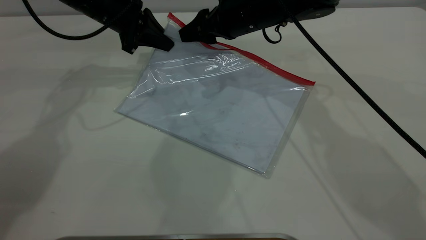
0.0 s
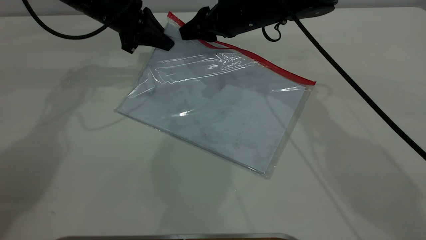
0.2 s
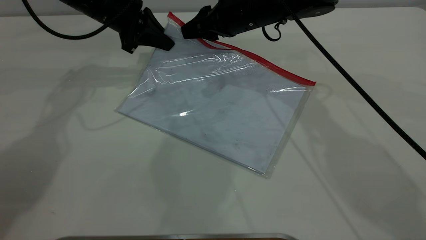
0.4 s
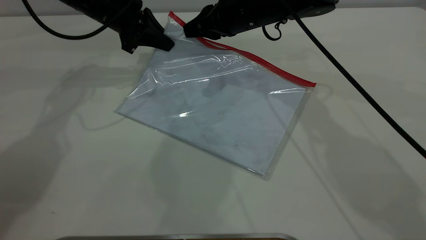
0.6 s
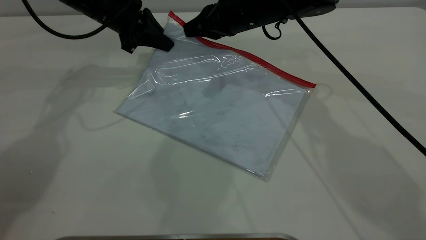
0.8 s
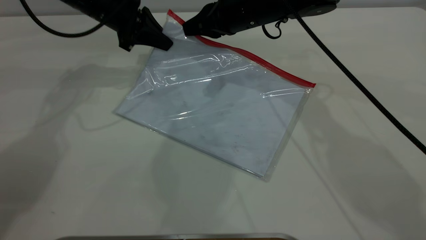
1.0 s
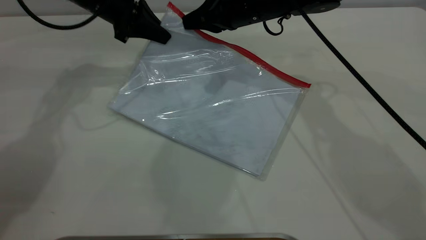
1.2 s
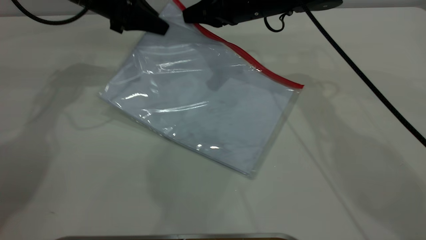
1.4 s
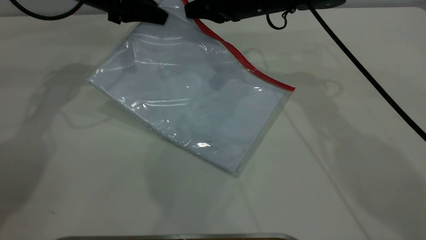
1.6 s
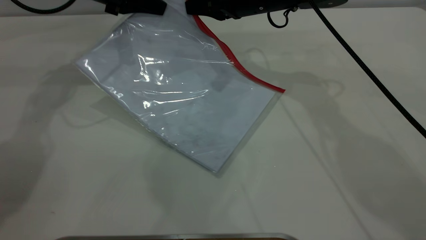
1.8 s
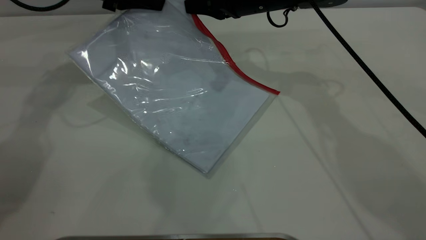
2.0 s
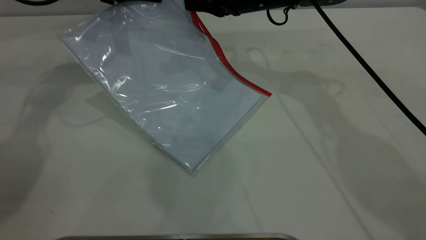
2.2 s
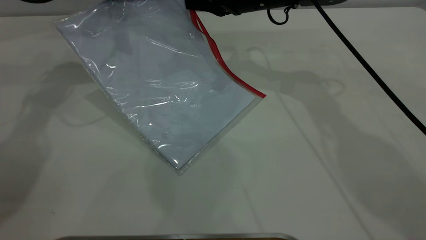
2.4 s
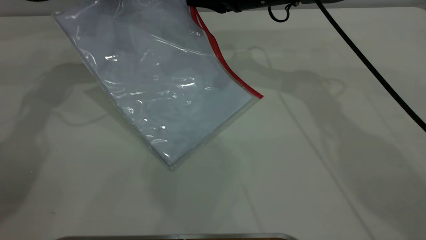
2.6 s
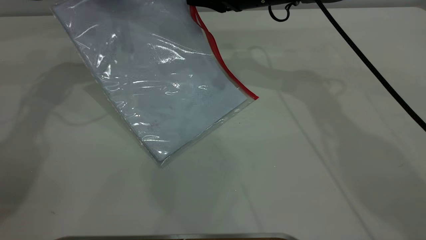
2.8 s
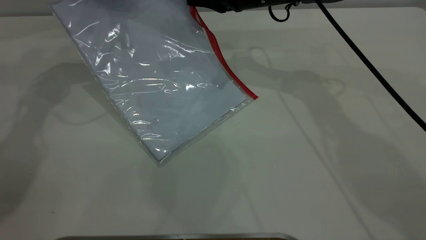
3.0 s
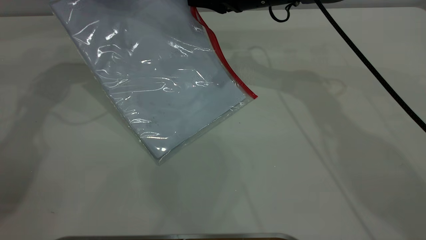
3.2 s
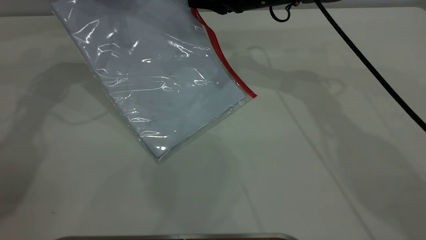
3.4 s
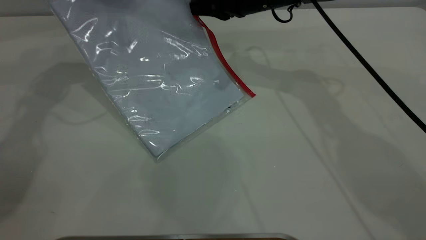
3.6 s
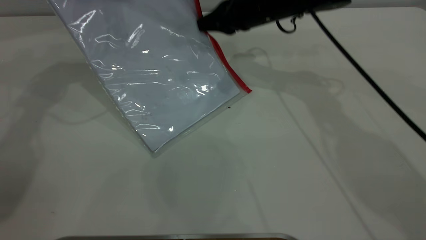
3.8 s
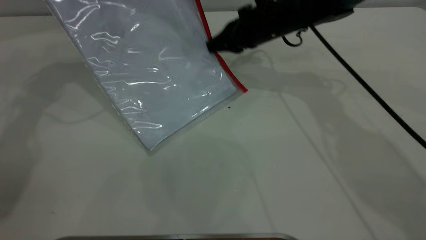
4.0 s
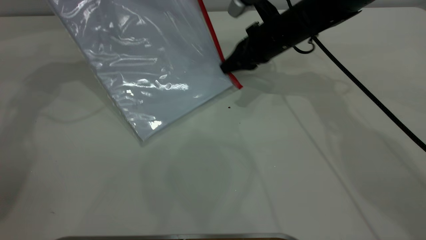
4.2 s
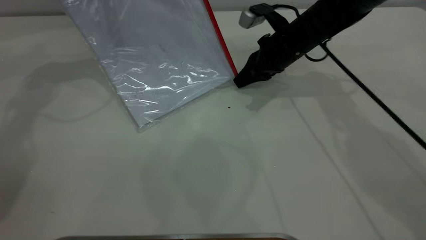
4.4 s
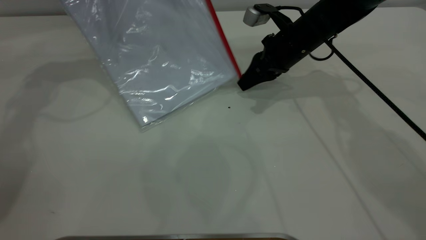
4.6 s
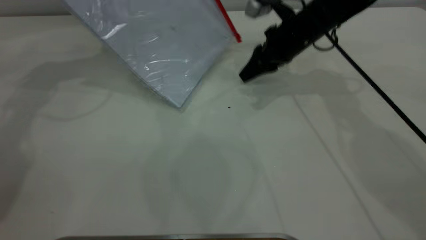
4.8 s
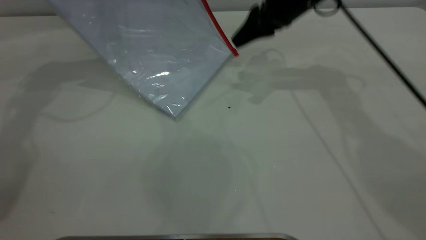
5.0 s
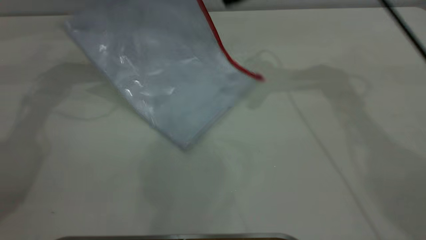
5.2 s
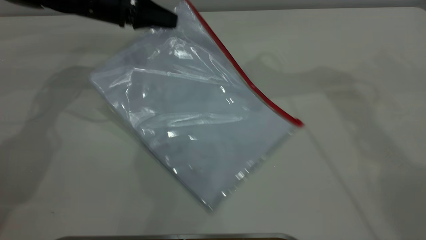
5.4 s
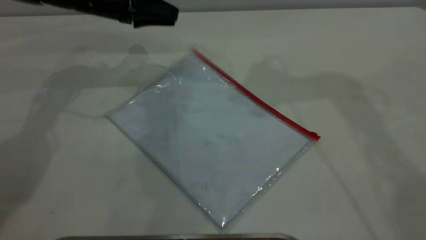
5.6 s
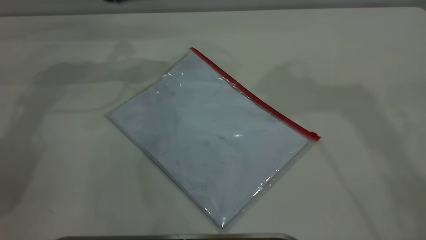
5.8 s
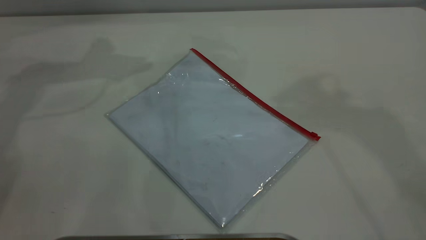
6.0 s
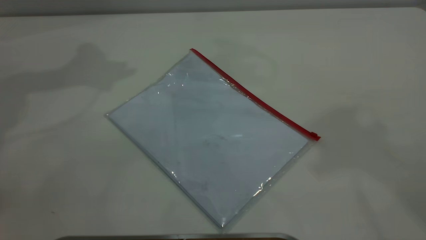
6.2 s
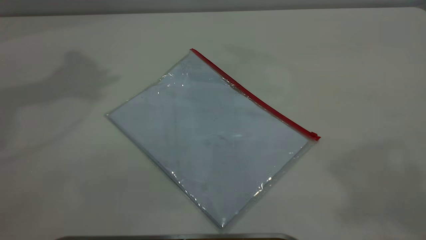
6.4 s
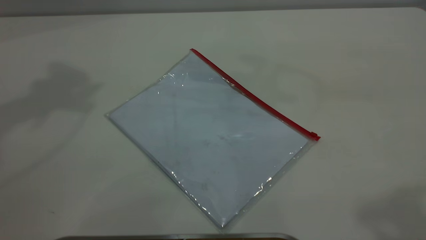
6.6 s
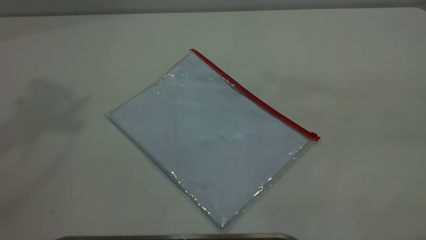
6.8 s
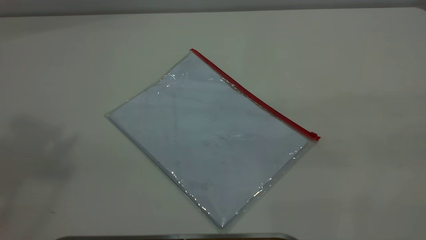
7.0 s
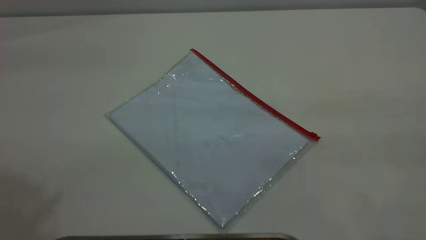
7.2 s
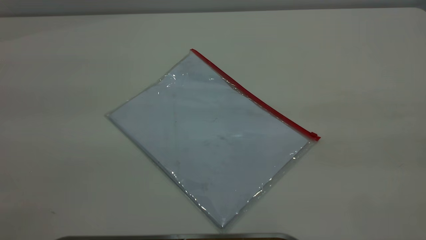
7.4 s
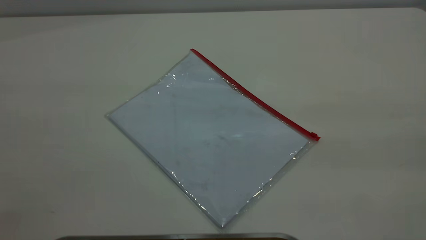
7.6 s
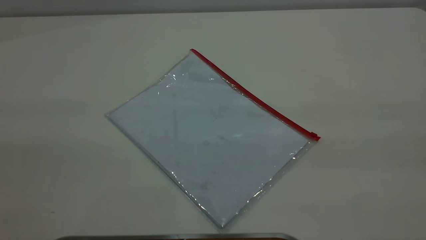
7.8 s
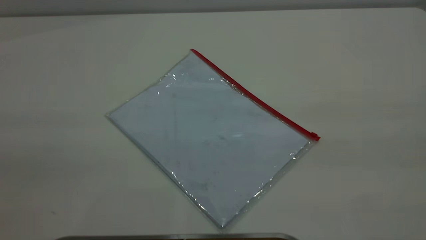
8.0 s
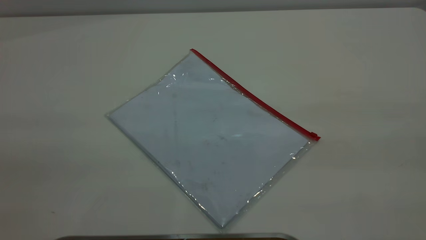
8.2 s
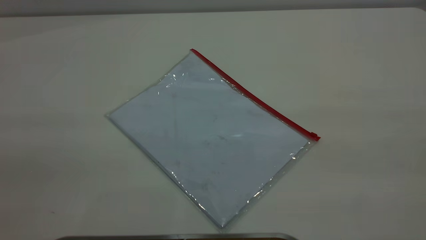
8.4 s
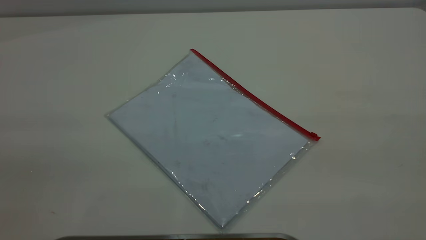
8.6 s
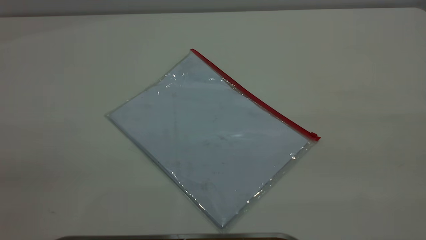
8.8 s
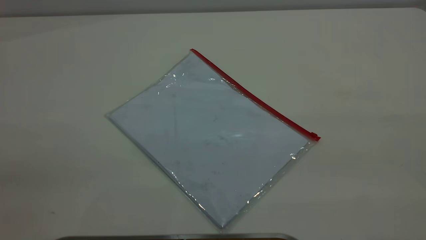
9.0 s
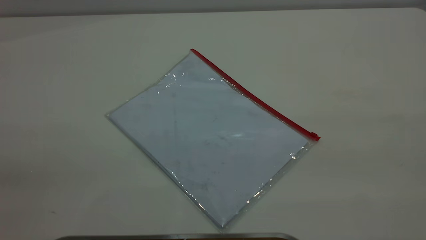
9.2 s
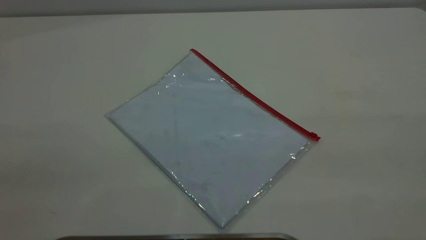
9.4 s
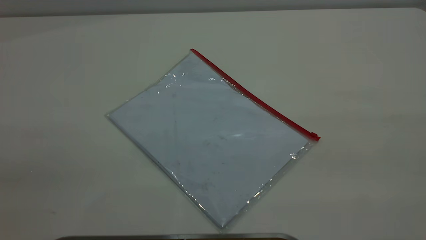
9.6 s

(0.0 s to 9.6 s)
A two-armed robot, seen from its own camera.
Step, 0.0 s - 4.6 s: Pulling up the zipper on the transparent plastic bag with the right gripper to close it.
Step, 4.8 s - 5.6 s: Place the transparent plastic bag.
0.0 s - 1.6 s: The right gripper closes.
1.6 s - 3.2 s: There are only small adjustments of the grippers.
3.2 s - 4.8 s: The right gripper goes roughly 5 cm to the right, and opens up.
4.8 s - 6.4 s: The left gripper shifts approximately 20 cm upward and backward, and opens its fingers. The right gripper goes approximately 50 cm upward and backward.

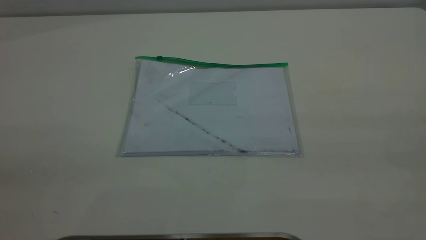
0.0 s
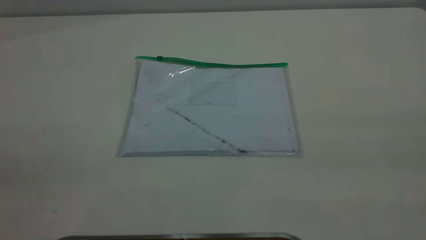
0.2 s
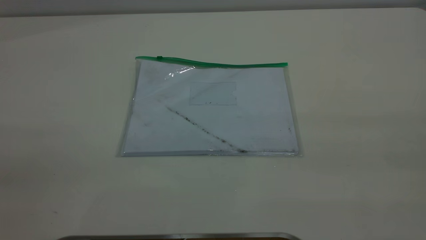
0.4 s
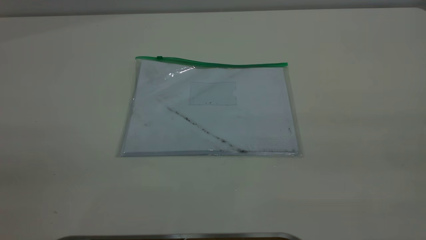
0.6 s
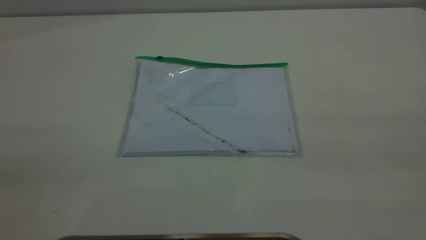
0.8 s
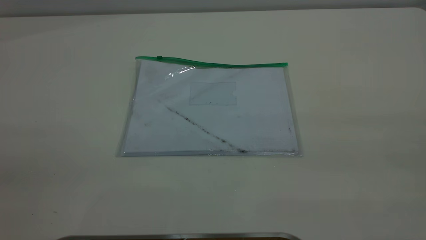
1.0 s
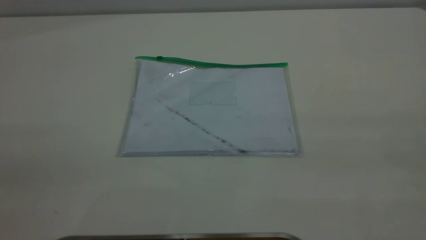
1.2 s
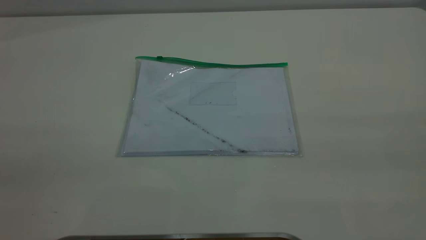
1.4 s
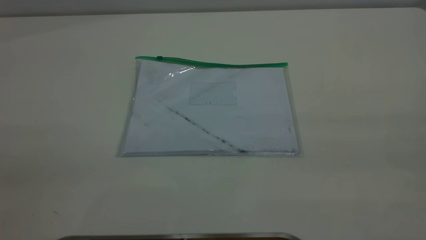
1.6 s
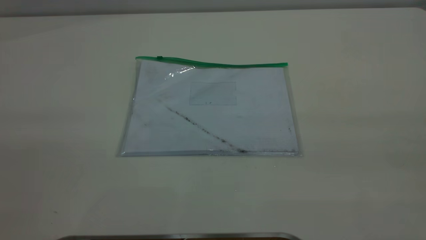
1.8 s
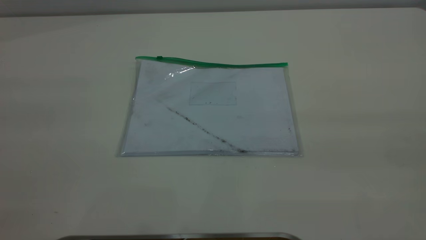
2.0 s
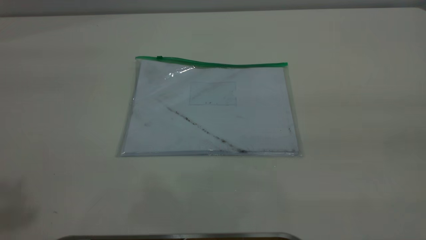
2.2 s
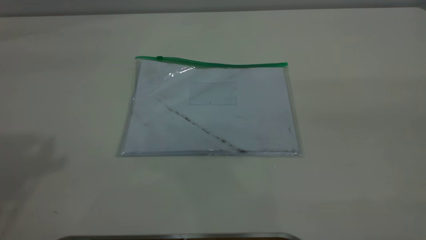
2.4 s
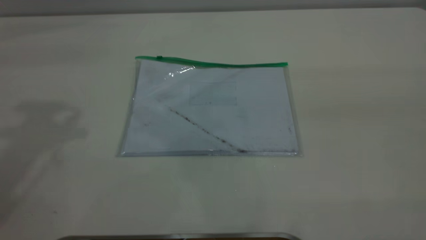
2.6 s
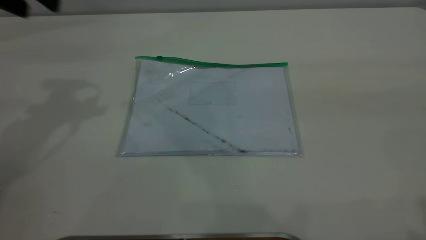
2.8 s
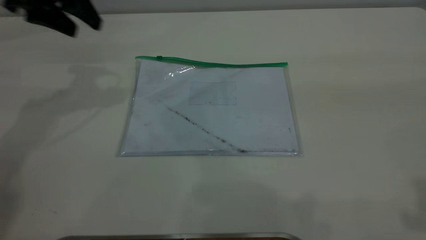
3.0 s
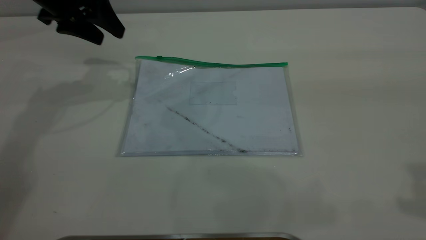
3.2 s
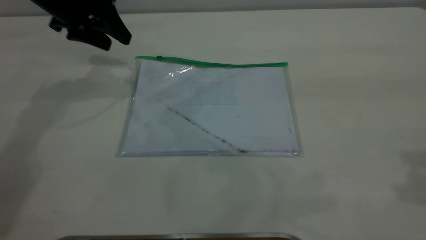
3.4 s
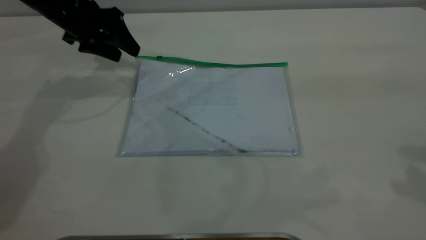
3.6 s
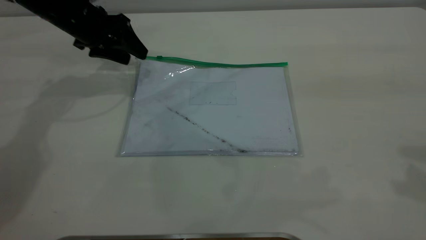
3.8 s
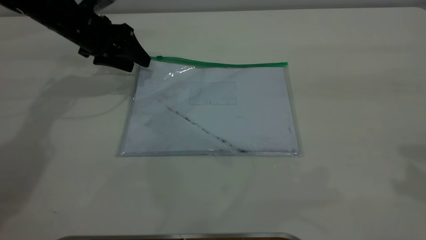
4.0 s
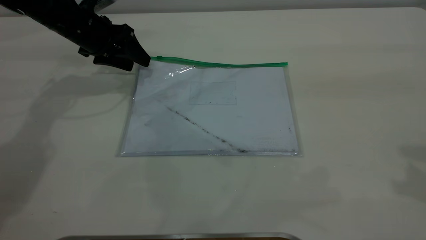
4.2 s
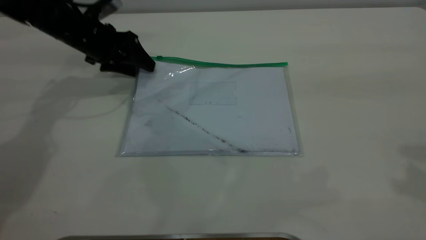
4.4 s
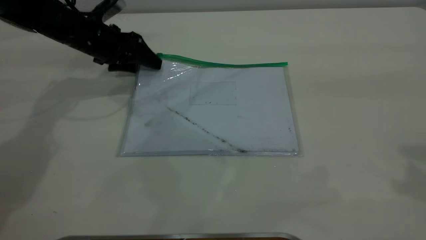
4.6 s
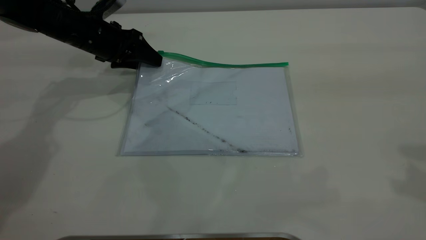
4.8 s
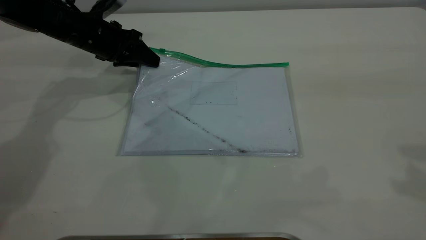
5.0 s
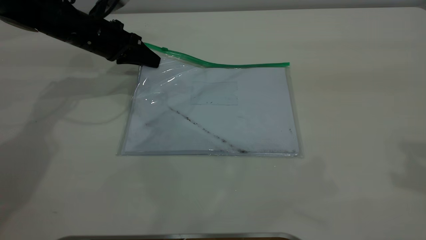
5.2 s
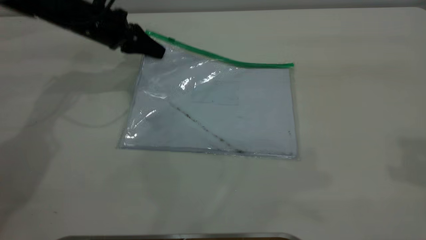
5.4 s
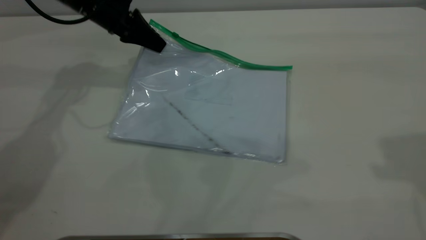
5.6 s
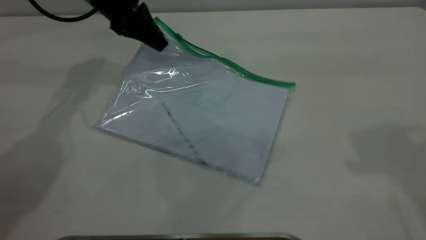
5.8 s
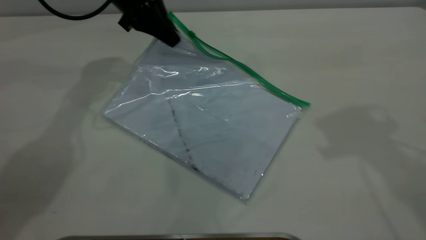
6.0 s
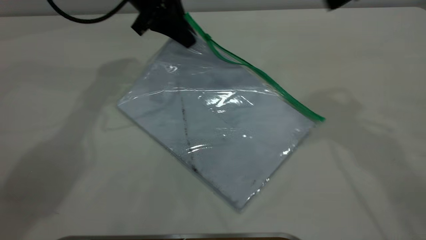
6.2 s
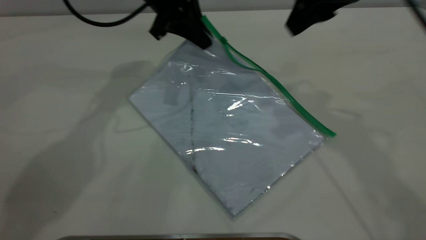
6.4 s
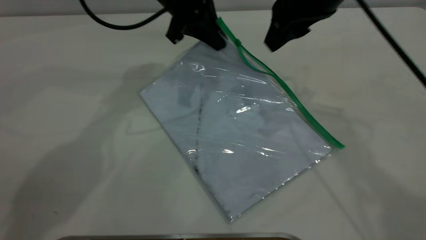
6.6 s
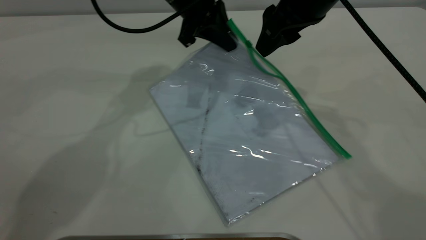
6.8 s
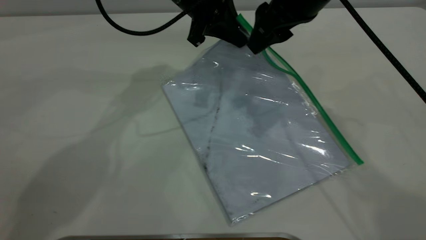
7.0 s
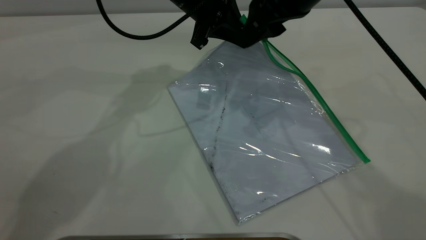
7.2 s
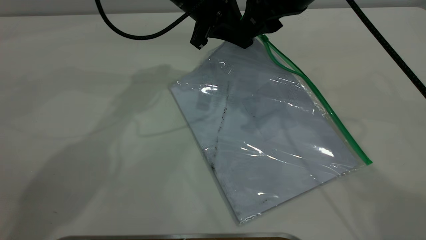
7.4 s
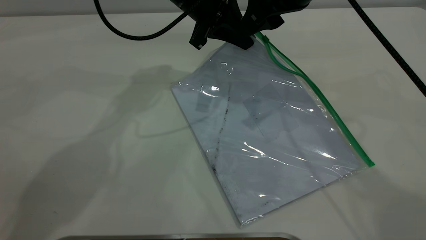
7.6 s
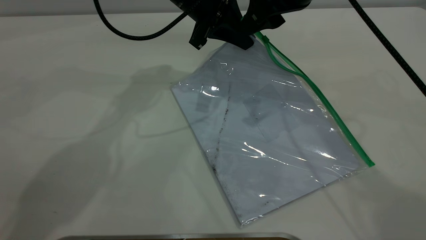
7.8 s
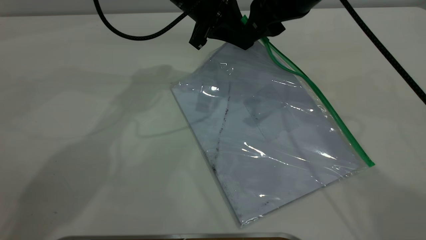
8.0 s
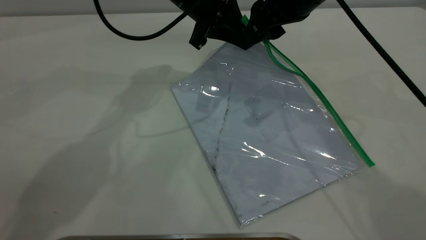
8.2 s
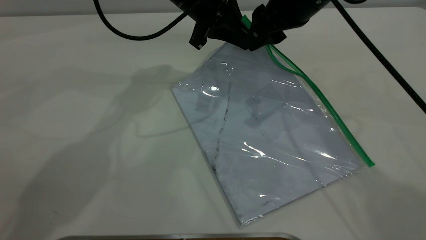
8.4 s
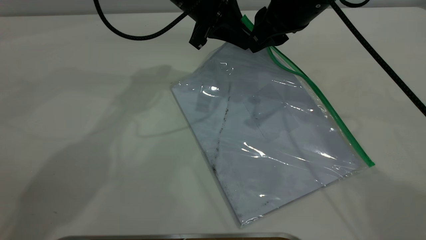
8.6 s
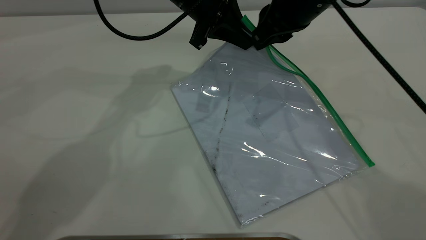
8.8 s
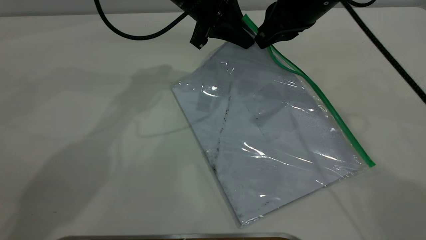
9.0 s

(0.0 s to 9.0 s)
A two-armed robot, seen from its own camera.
Step, 0.0 s - 5.4 s: Pick up the transparent plastic bag with the left gripper.
0.0 s - 1.6 s: The two grippers keep their place.
1.6 s - 3.0 s: The left gripper travels forward by approximately 40 cm.
3.0 s - 4.4 s: The left gripper travels downward by roughly 15 cm.
4.4 s - 6.0 s: The right gripper shifts some 10 cm forward and to the left. Meanwhile the left gripper goes approximately 10 cm upward and to the right, and closes.
6.0 s - 7.6 s: The left gripper is displaced to the right by about 10 cm. Meanwhile the right gripper shifts about 15 cm to the left, downward and forward.
7.6 s - 9.0 s: The right gripper closes its fingers.
